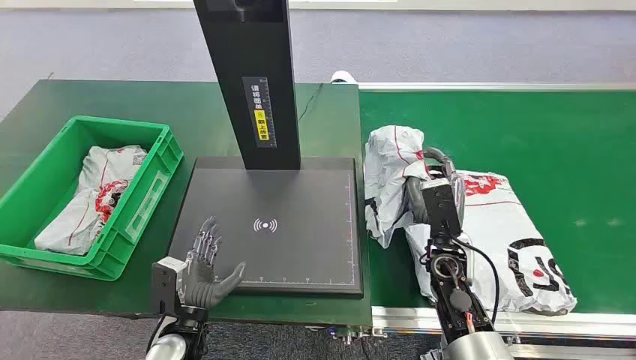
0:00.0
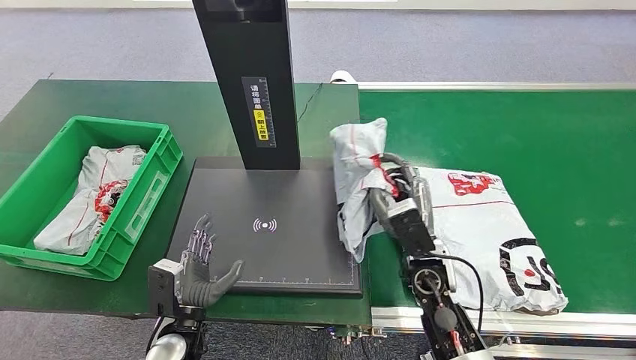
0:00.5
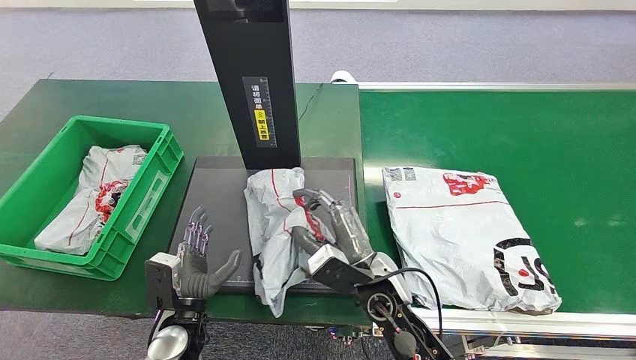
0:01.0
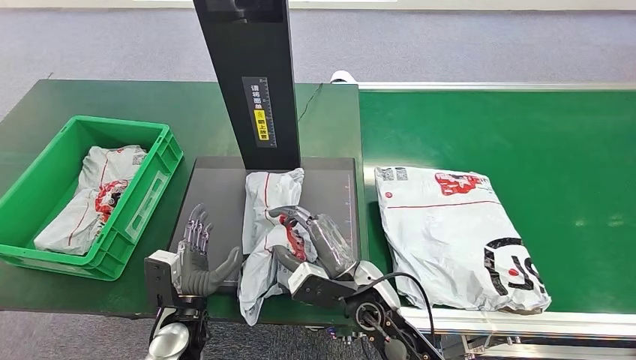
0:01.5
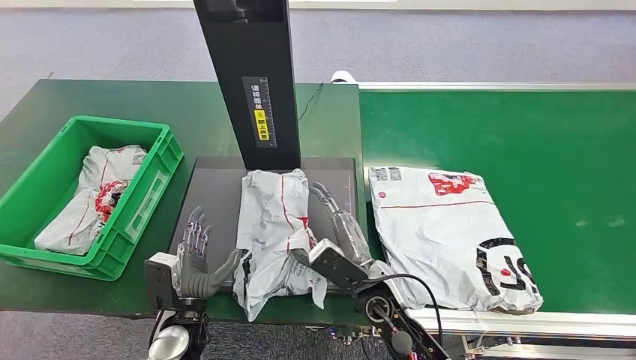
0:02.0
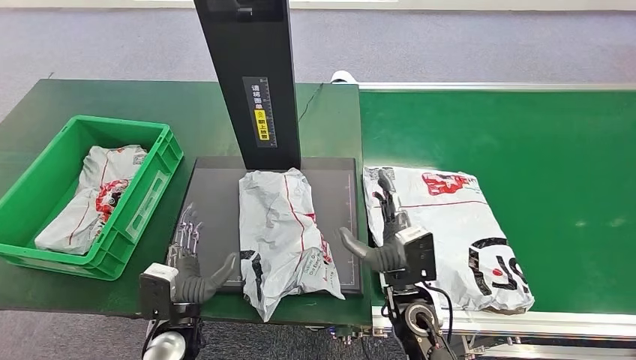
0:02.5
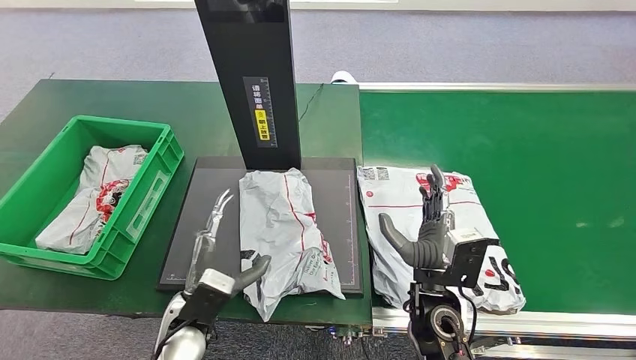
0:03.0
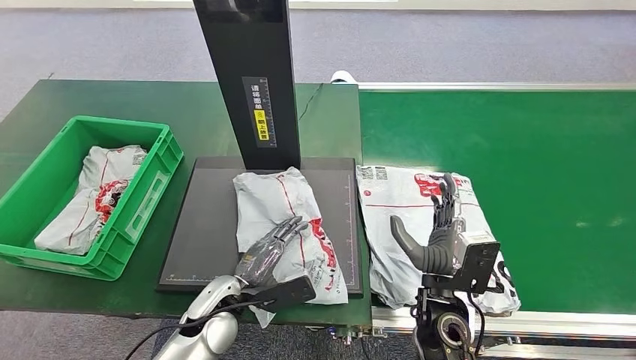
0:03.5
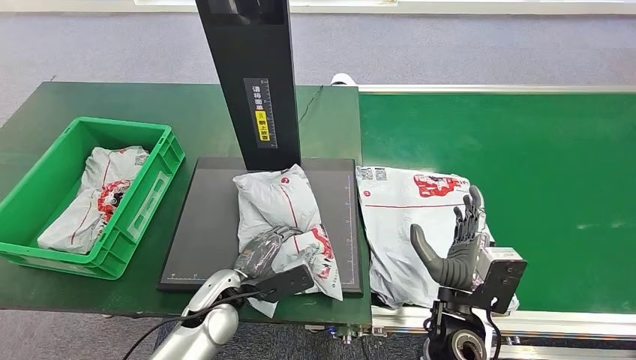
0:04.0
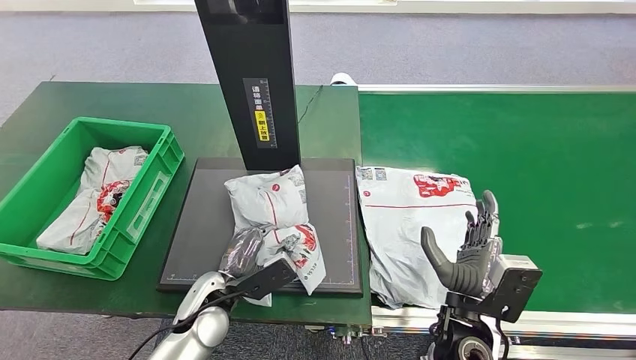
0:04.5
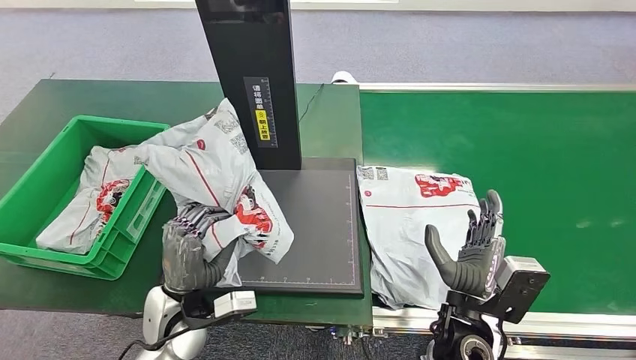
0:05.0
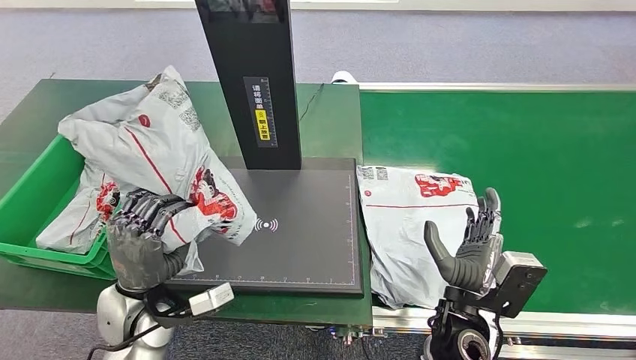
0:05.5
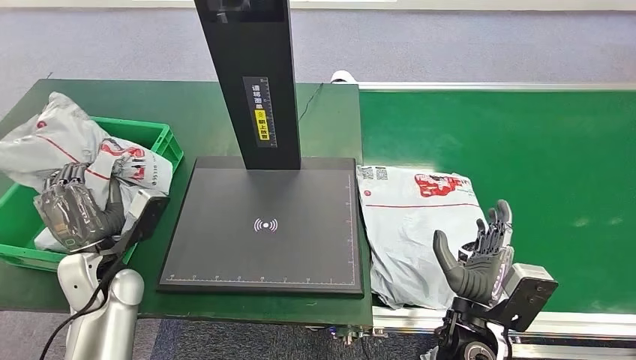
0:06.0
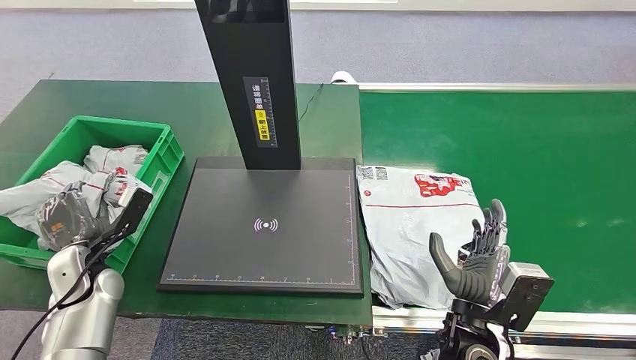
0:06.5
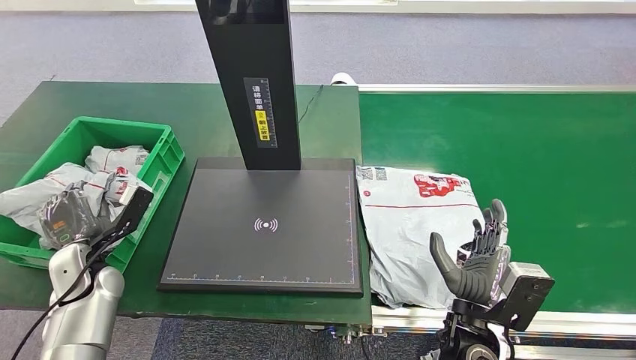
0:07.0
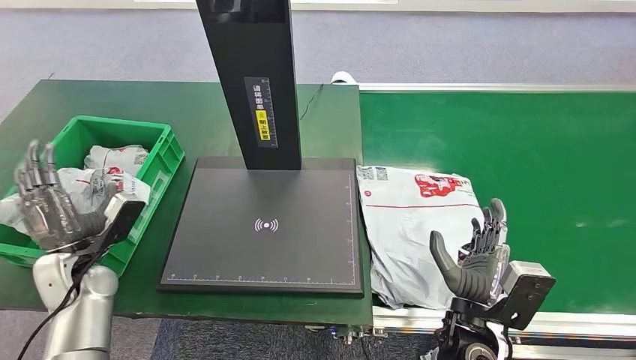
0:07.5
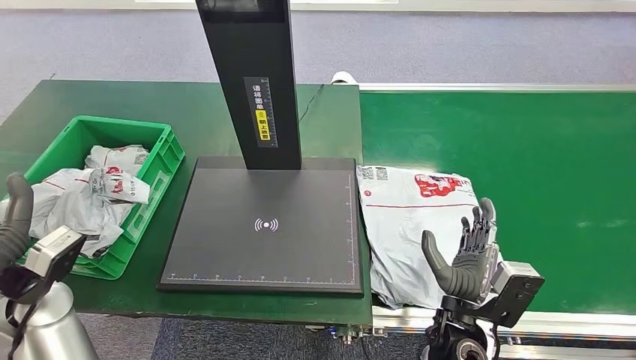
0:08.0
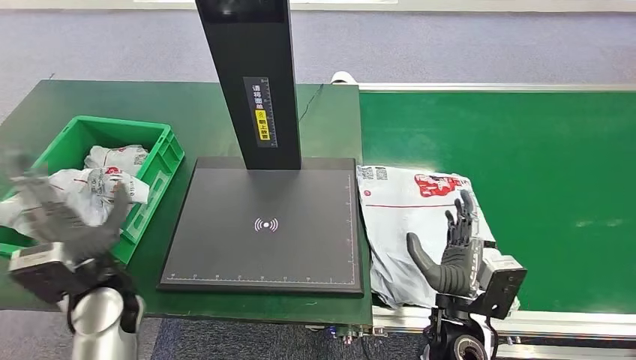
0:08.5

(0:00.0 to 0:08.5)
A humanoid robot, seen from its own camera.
0:06.5 - 0:08.5: The left hand travels to the right and upward by about 10 cm.
